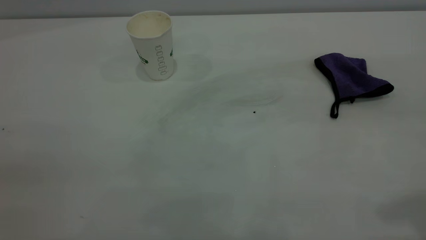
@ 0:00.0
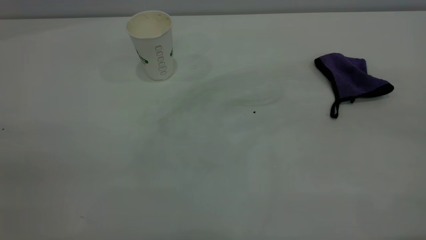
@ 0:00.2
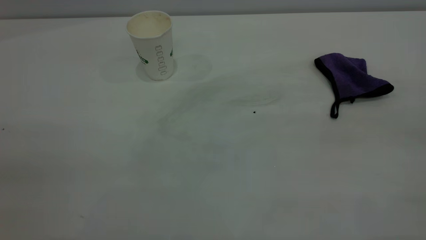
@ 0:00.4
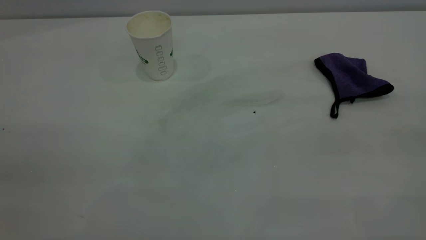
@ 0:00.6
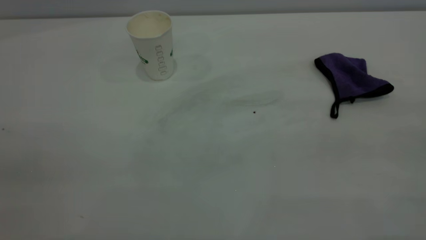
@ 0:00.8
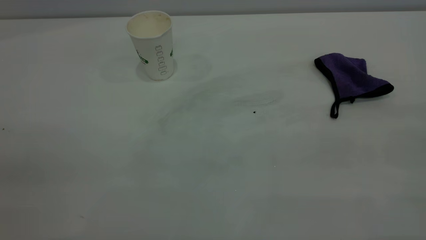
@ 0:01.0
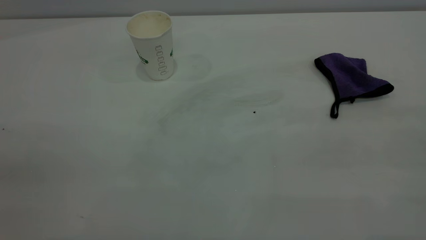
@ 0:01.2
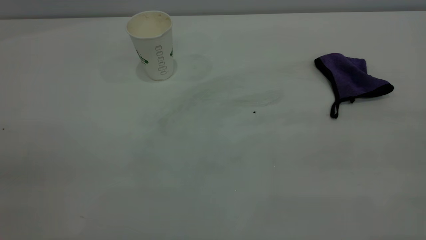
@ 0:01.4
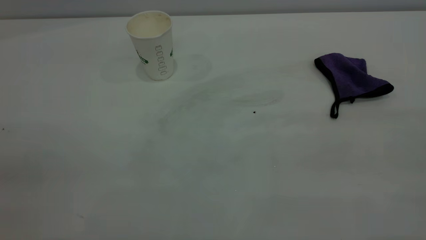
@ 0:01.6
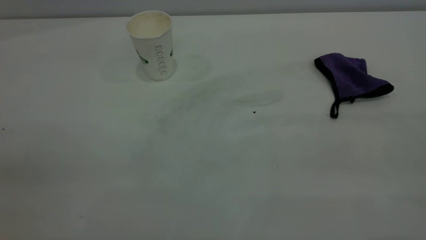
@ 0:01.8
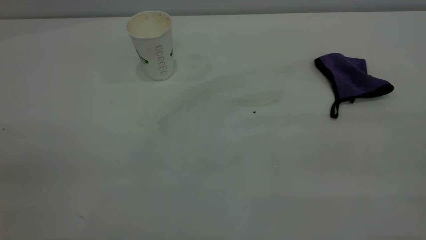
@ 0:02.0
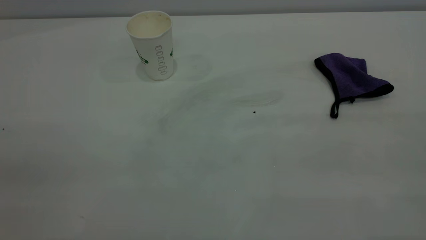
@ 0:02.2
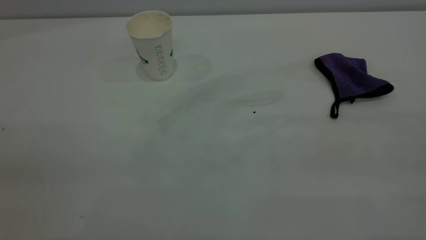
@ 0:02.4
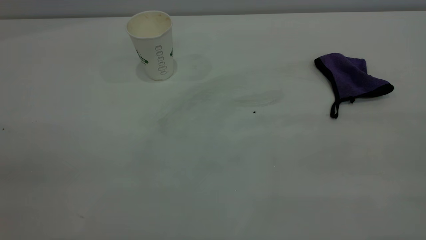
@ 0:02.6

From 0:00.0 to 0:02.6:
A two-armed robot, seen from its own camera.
Task of the whole recording: the left gripper pick up the fallen cup and place it upright, the right gripper grasp the purple rag and wipe the coffee stain on the table, the right gripper put the purple rag back in its original position.
From 0:01.2 to 0:02.6: Both grippers stay put.
